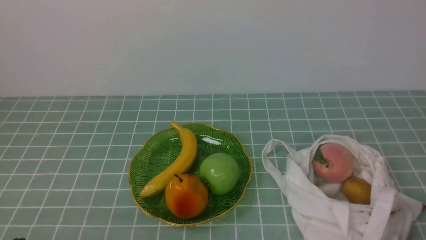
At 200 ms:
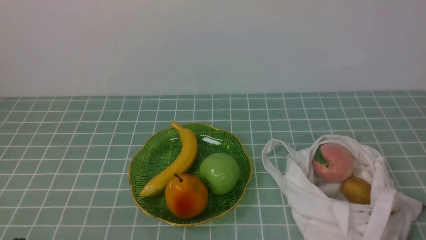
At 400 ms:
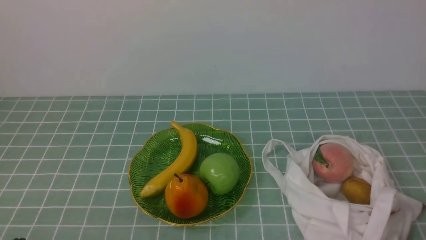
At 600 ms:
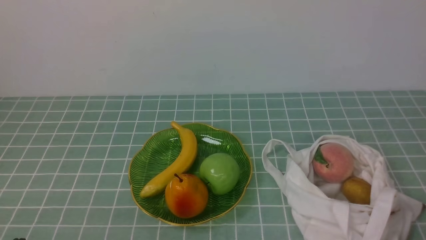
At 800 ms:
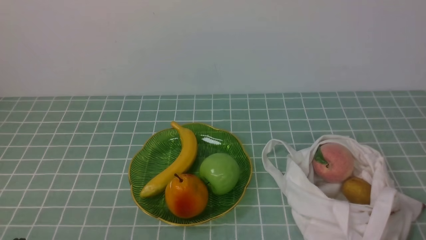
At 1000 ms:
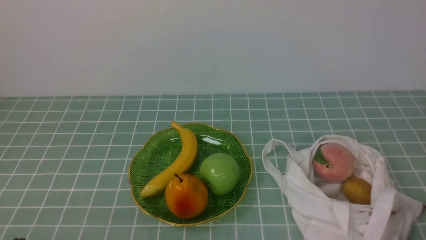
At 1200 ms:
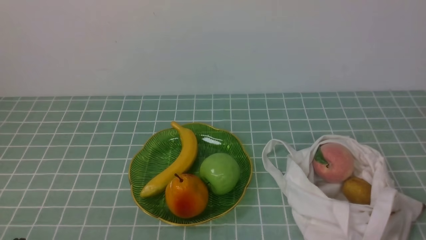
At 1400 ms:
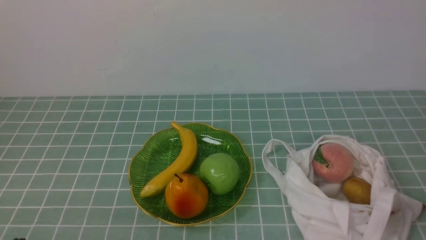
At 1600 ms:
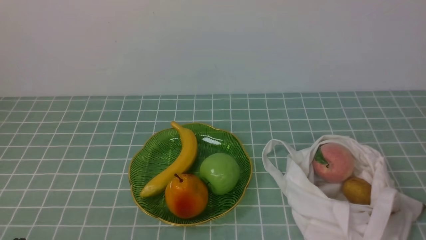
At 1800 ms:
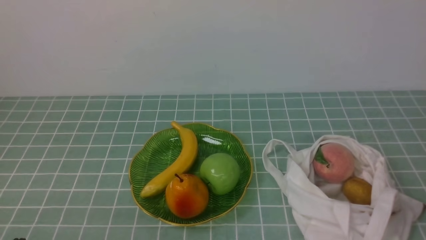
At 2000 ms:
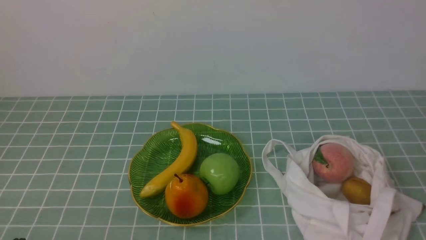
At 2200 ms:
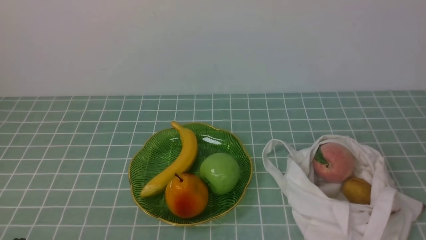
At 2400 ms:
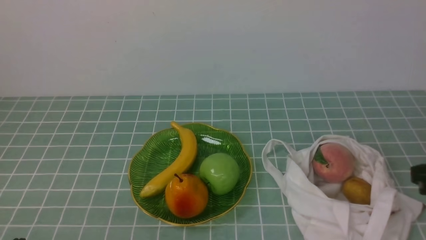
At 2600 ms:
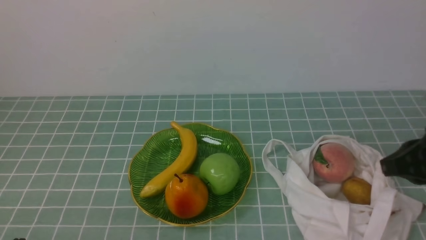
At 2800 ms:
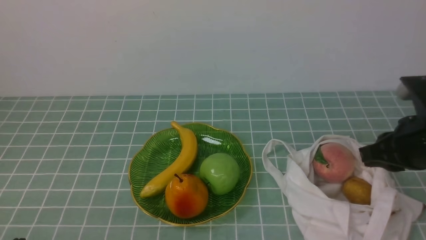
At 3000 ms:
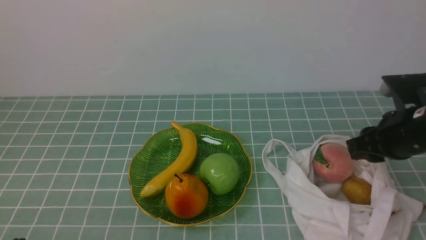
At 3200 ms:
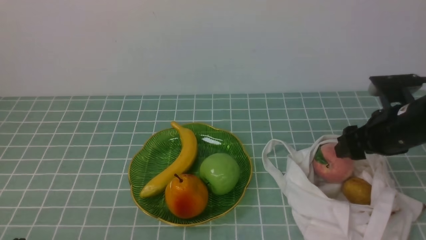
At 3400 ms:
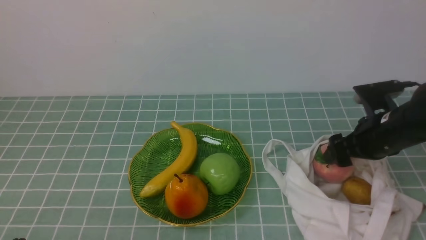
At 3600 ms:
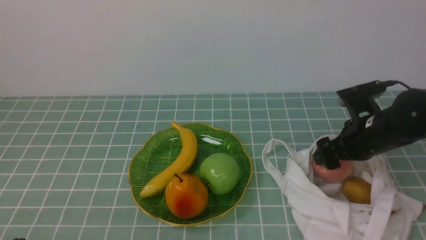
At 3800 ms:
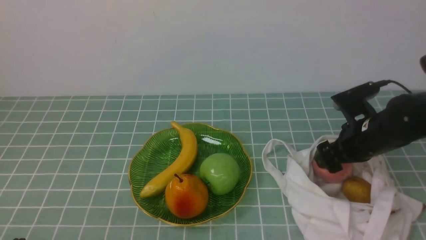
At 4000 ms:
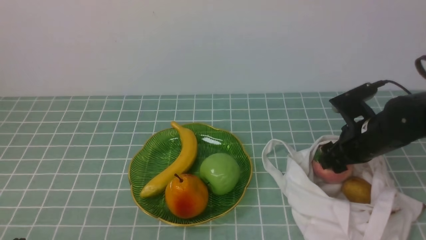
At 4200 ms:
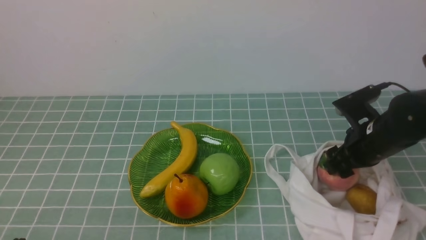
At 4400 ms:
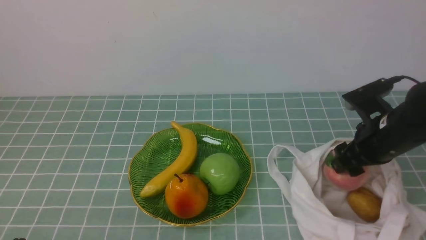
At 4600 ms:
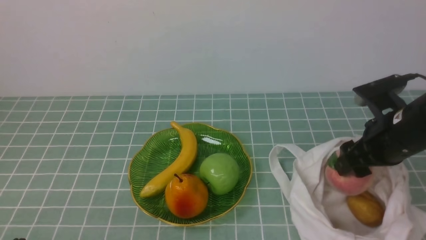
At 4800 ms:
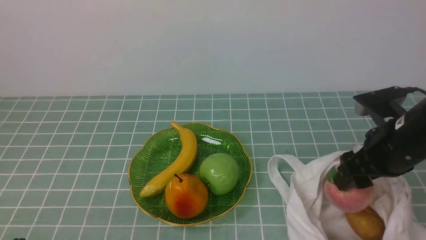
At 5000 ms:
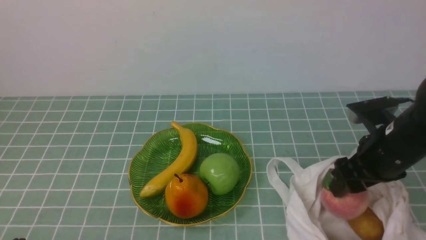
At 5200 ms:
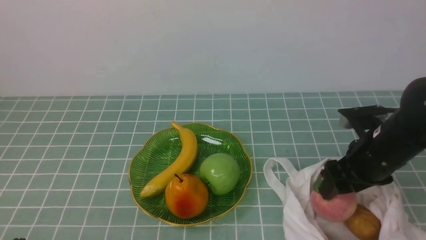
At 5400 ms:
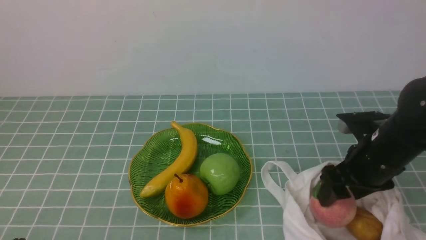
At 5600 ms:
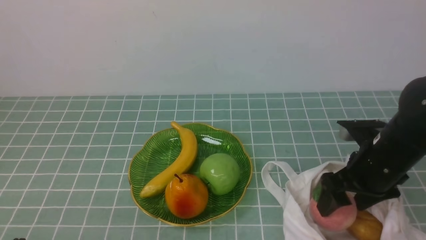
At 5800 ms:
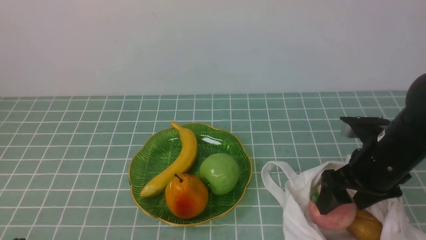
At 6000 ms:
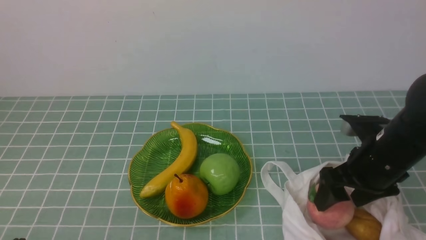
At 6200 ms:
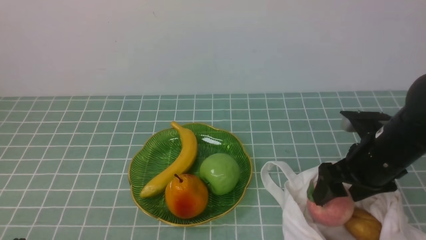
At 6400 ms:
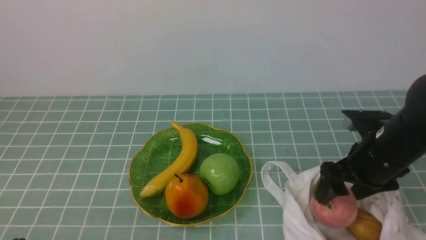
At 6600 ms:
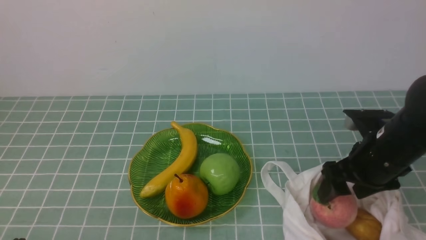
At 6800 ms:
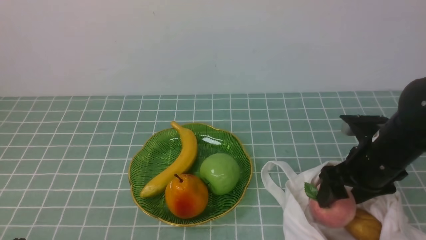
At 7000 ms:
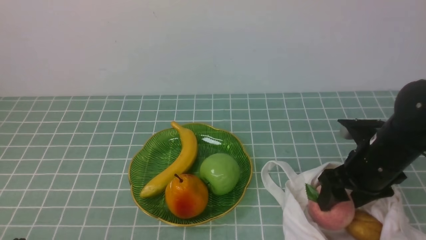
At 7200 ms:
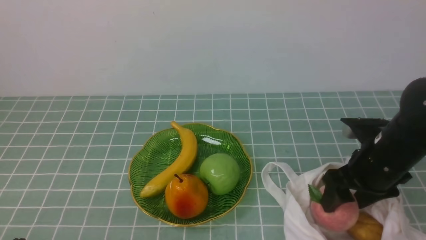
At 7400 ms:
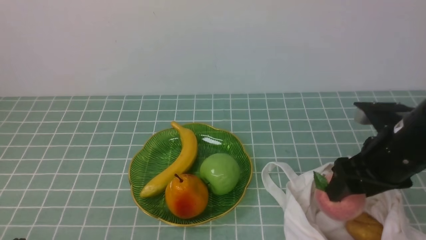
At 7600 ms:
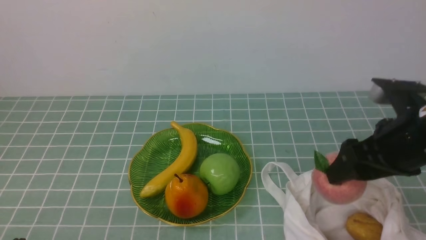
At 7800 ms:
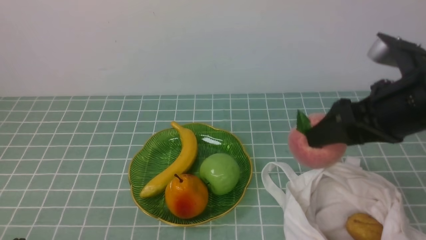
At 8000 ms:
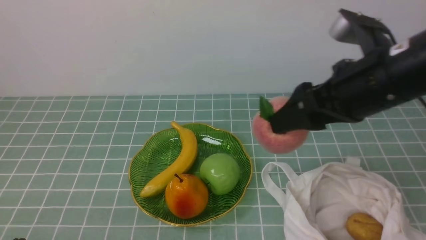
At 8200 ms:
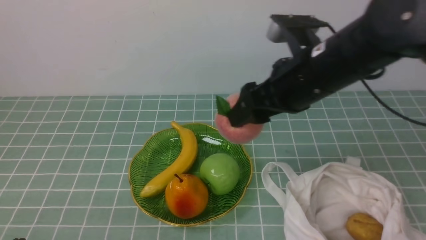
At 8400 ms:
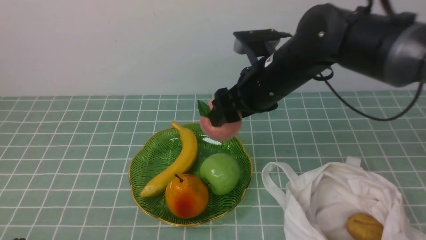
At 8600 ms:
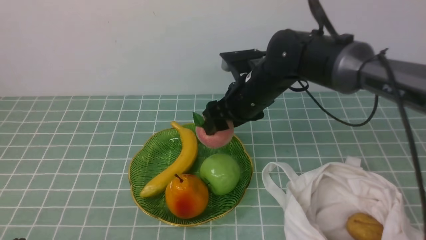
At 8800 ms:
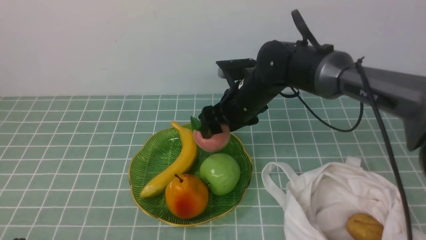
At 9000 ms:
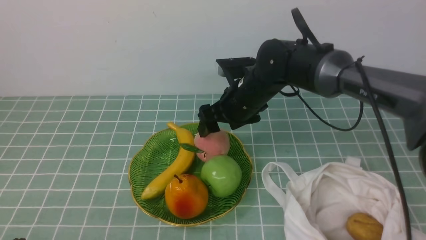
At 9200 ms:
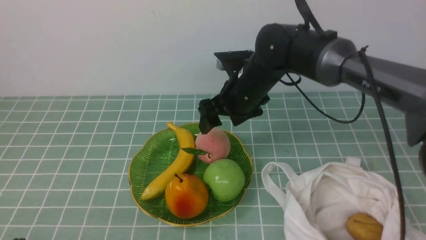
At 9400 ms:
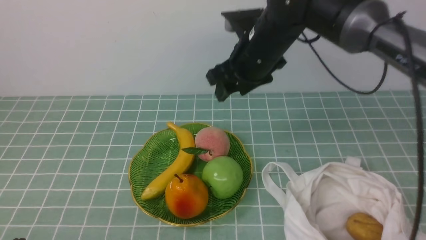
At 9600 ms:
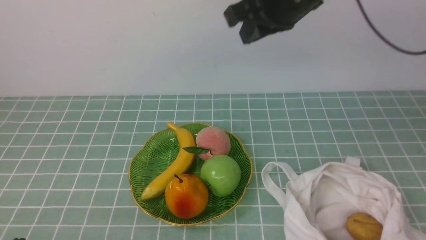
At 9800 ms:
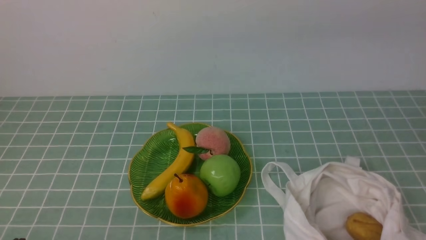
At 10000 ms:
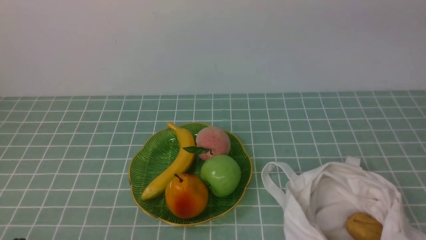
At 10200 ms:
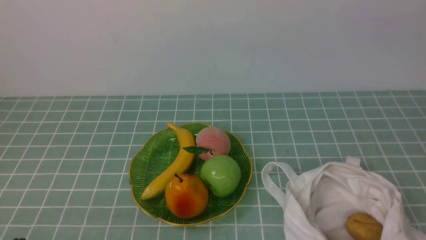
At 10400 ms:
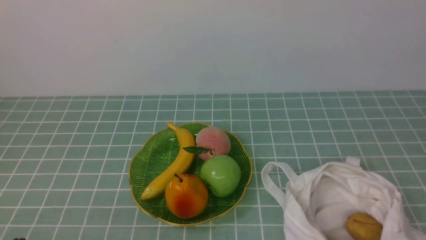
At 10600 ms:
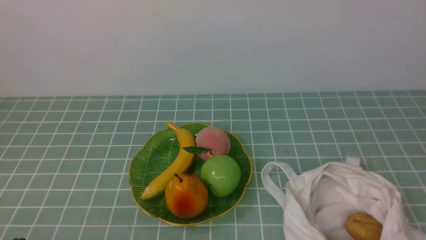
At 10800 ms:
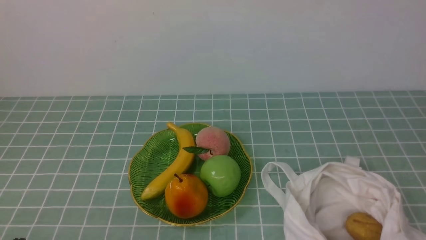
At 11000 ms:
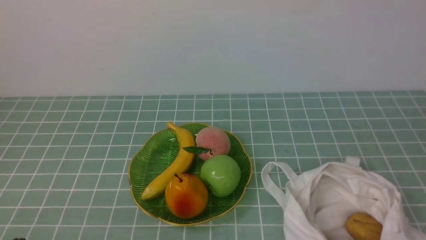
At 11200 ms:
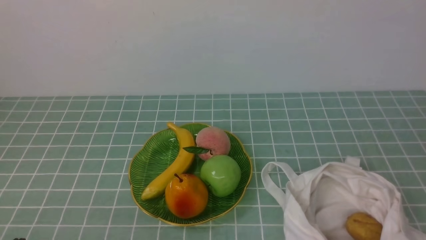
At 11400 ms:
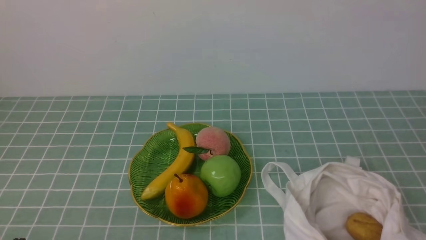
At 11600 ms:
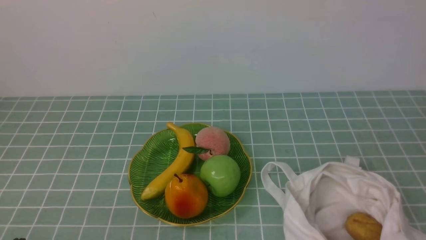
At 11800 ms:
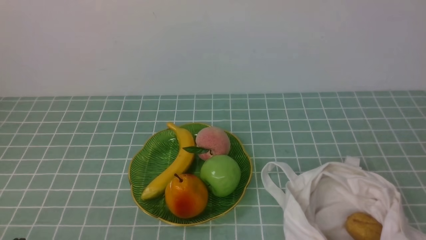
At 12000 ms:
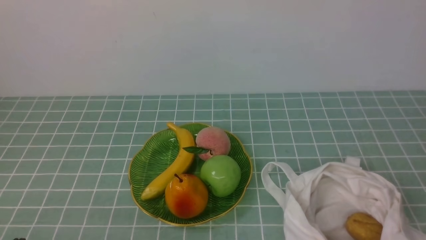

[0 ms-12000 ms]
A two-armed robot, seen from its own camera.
Step, 0 ms to 7000 ms: use the right arm to grab a peach from the bag.
Step, 7200 ms to 9000 ms: use the right arm to put the peach into the empty plate on the left.
1600 ms to 3000 ms: The right gripper is displaced forward by some 25 cm, and opens.
6000 ms to 7600 ms: The right gripper moves upward, roughly 10 cm.
7600 ms to 9000 ms: The right gripper moves to the left, forward and downward, approximately 25 cm.
9000 ms to 10400 ms: The right gripper shifts roughly 50 cm upward, backward and to the right, and closes up.

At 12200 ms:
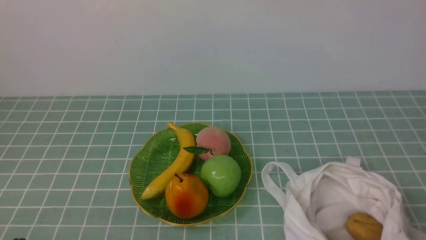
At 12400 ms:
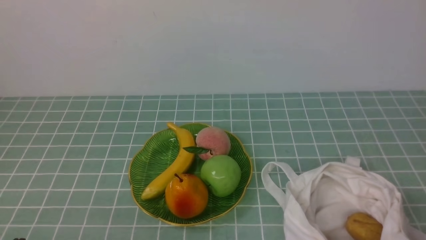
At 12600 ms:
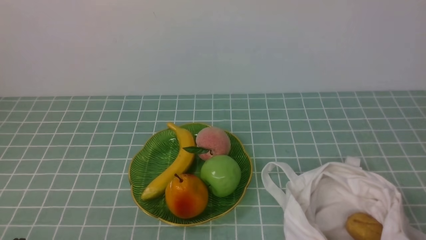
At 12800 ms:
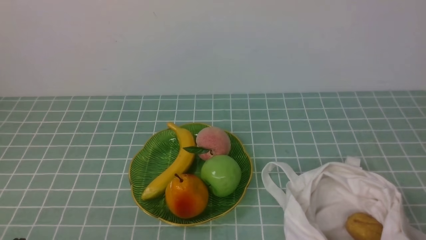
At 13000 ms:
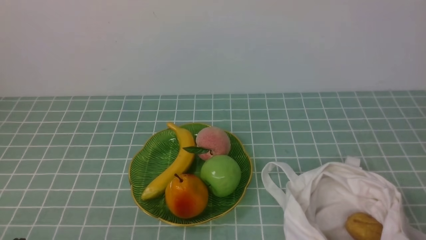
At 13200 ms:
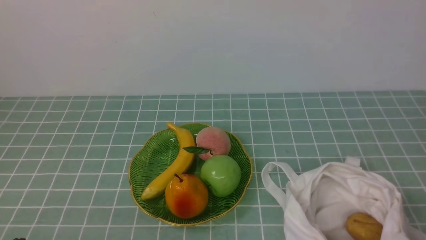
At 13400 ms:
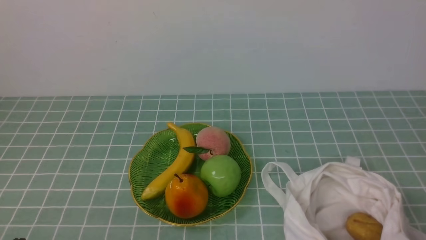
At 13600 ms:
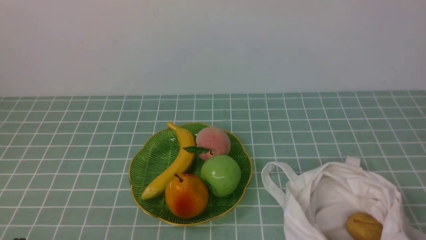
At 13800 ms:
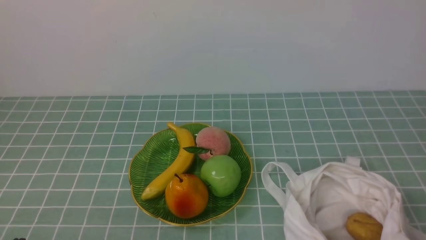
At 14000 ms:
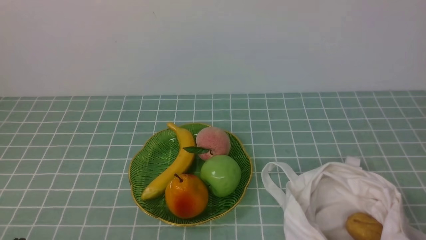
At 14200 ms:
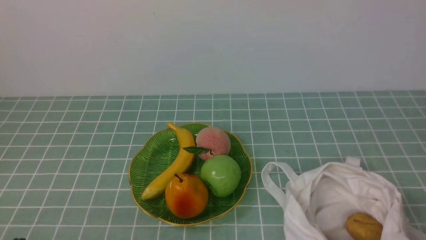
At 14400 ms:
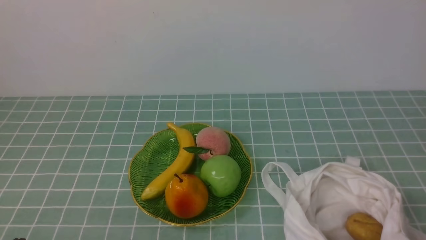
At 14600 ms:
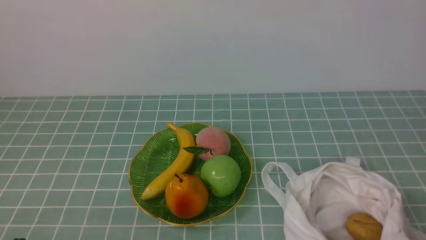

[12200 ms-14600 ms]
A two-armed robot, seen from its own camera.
13400 ms to 14600 ms: Neither gripper changes place.
